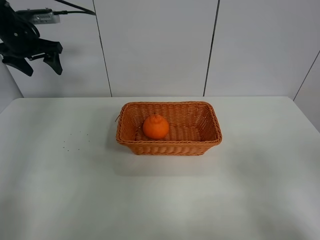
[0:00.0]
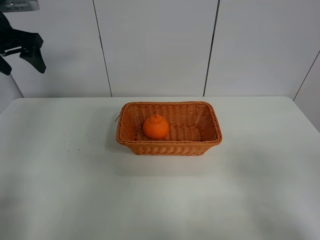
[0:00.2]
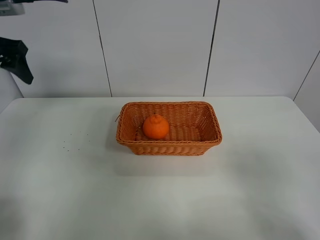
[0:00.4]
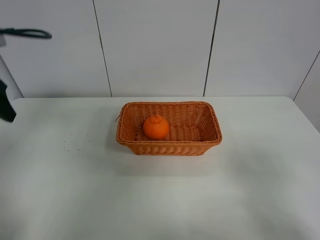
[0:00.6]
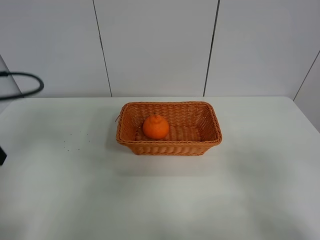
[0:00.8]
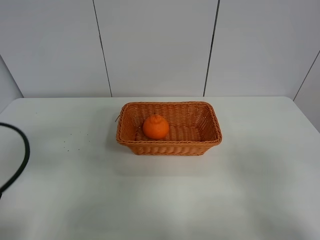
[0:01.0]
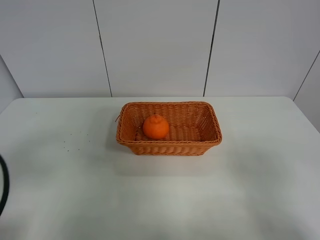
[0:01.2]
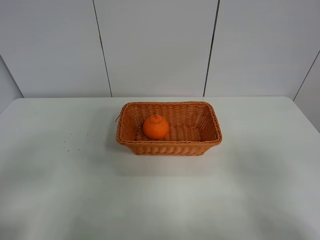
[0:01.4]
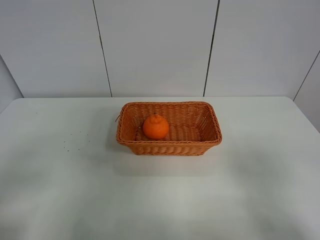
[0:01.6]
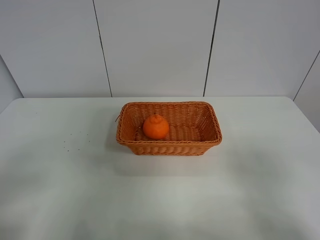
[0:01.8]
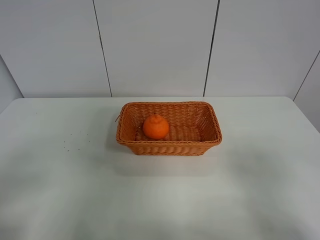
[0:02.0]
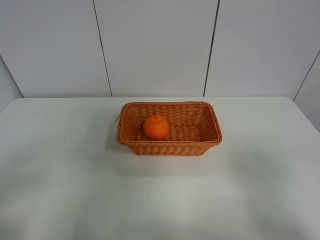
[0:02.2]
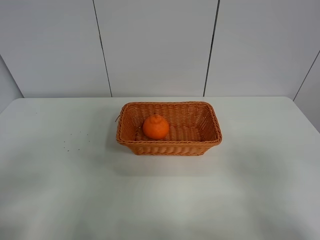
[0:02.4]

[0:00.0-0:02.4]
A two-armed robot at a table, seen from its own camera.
Task of the whole recording: left gripper grabs oranges and puts them in the basket.
0:00.0 to 0:01.2: The left gripper travels backward by some 35 cm.
